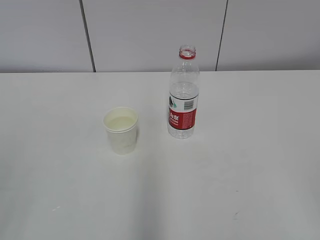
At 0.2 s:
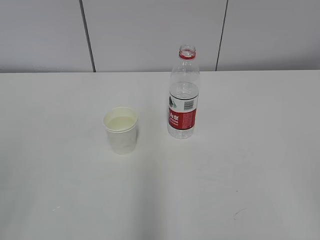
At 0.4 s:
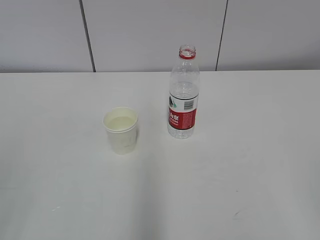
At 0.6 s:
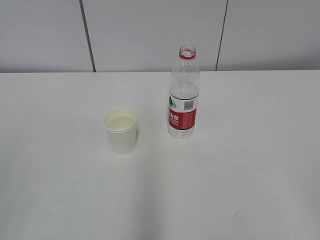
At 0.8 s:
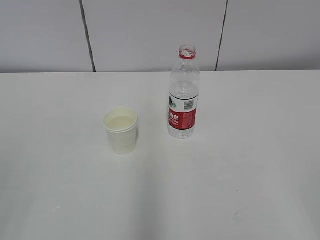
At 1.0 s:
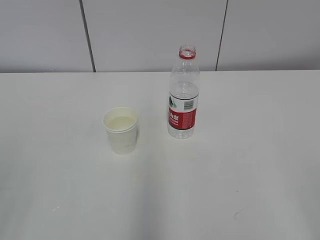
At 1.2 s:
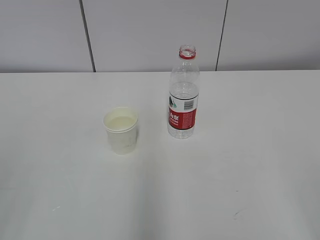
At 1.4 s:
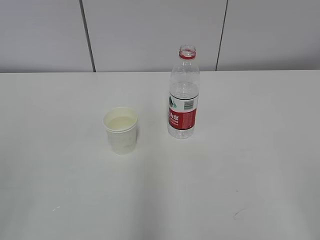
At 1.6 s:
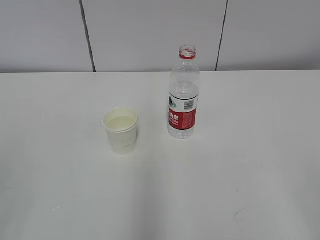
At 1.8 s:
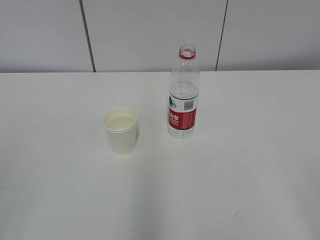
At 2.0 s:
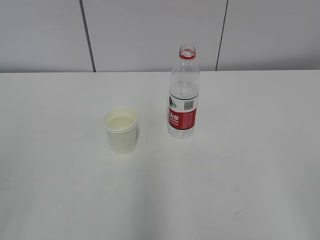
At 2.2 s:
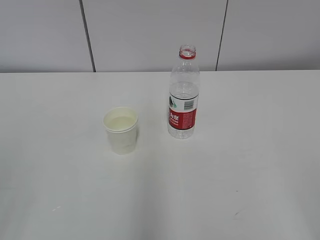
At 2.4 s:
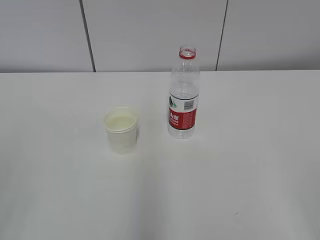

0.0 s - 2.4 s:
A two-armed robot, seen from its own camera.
1.2 s - 2.4 s: Neither gripper changes place.
